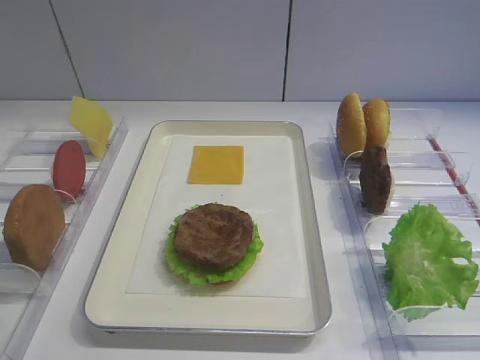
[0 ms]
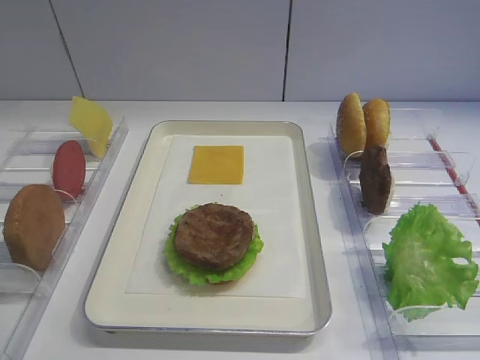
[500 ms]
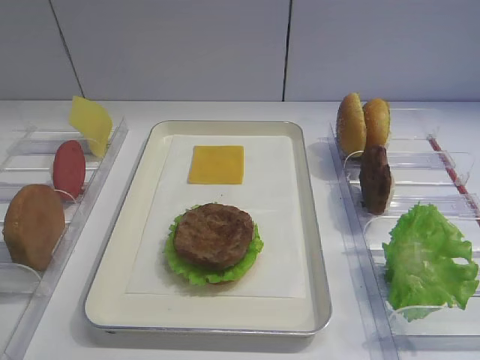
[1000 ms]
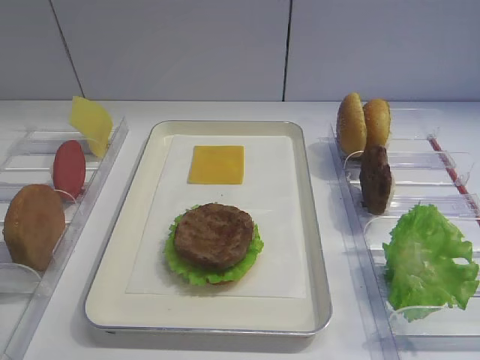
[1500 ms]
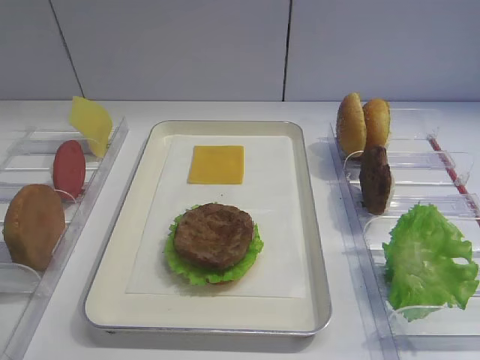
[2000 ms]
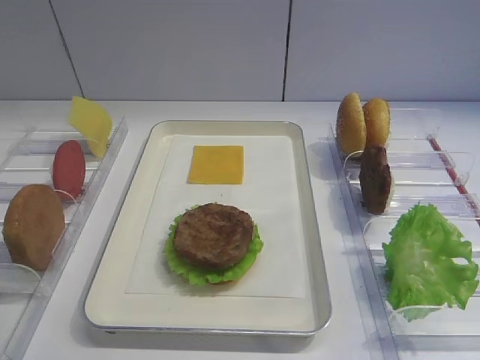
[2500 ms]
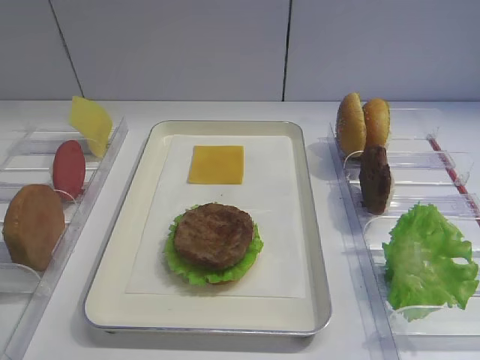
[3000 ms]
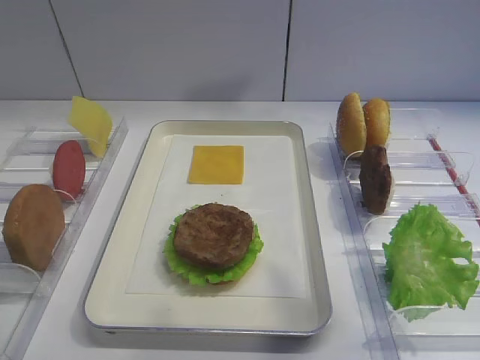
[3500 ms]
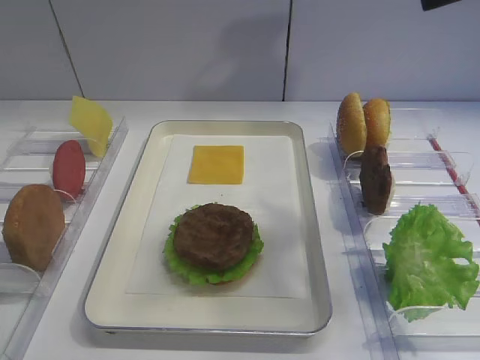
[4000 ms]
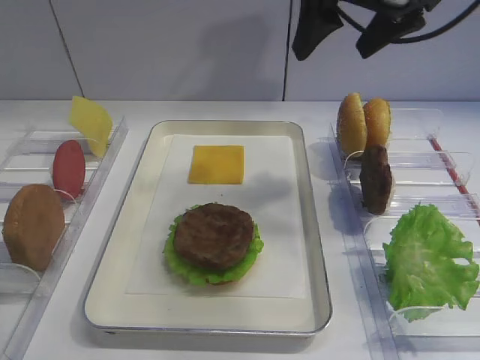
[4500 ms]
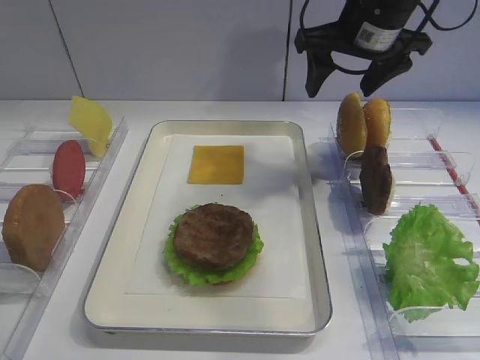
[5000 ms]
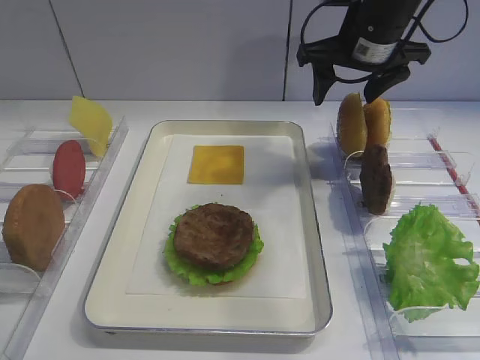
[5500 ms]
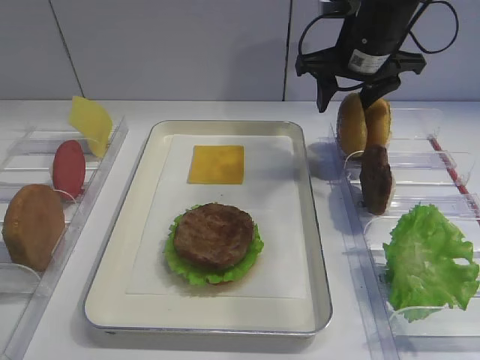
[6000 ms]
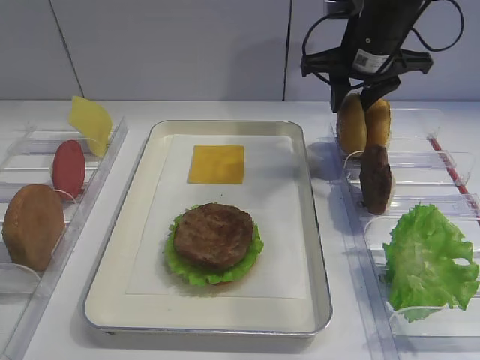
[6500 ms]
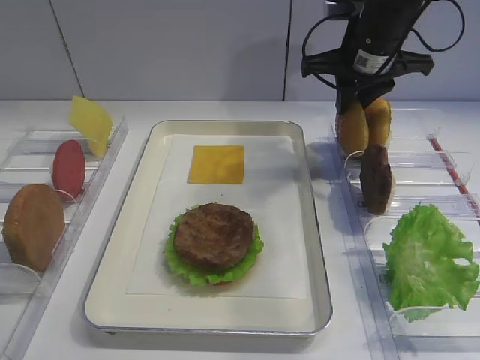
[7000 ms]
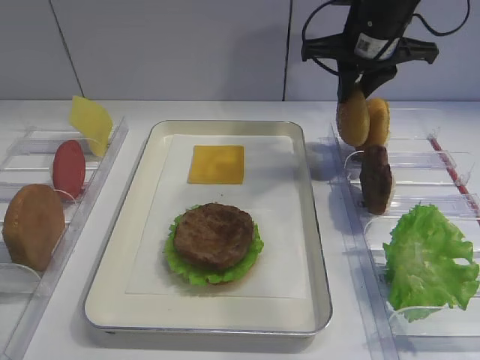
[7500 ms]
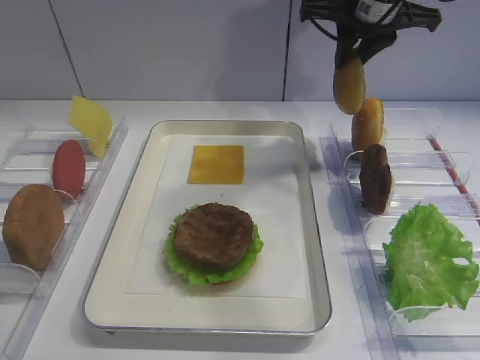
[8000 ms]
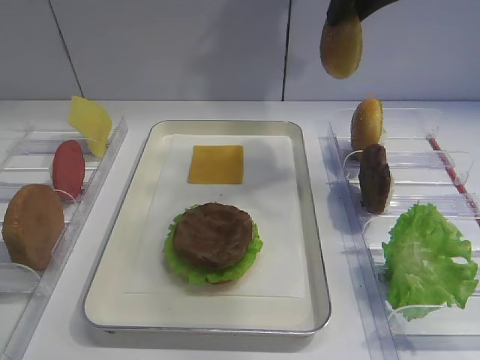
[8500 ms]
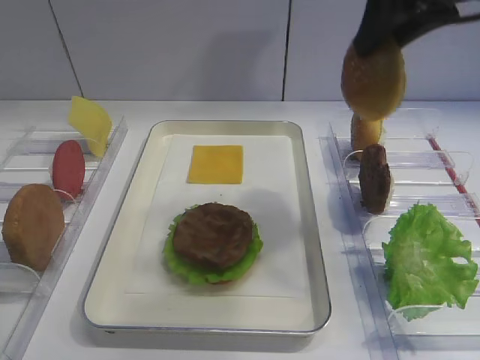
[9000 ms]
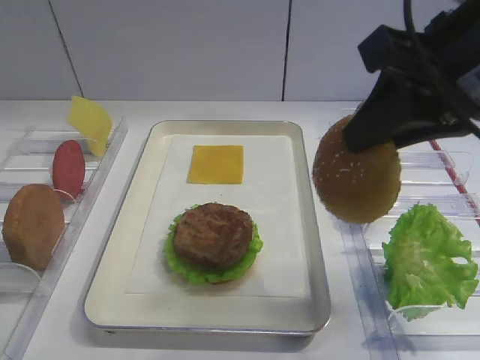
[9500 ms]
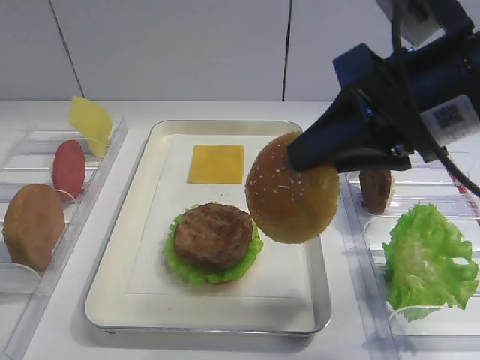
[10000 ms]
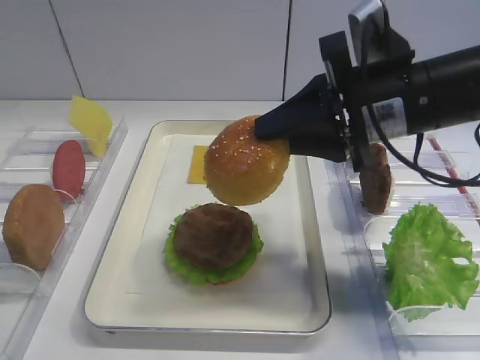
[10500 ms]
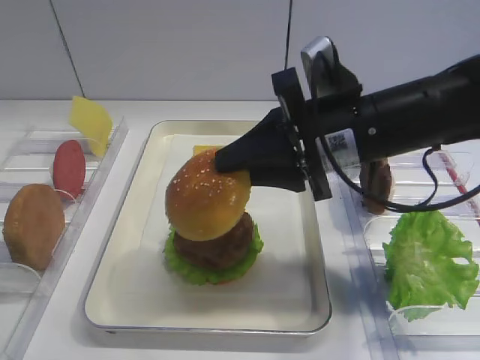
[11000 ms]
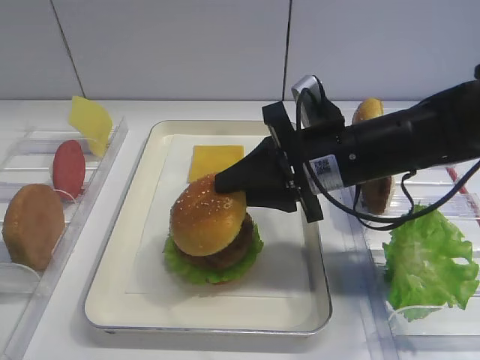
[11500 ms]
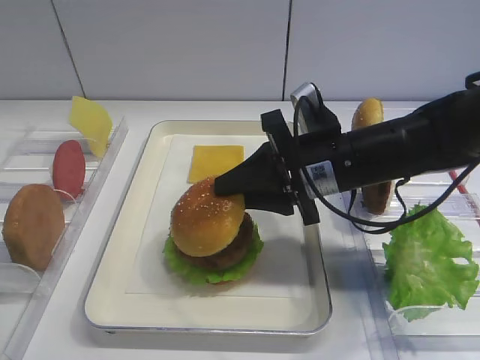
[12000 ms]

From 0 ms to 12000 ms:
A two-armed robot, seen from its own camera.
Step, from 0 ms to 7500 ms: Pick up the hamburger lid with the right gripper.
From 2000 ms to 4000 ms: The right gripper moves forward and upward, approximately 30 cm.
From 4000 ms to 6000 ms: The right gripper heads downward, forward and to the left, covering about 20 cm, and closes up.
From 6000 ms to 8000 ms: The right gripper shifts about 5 cm upward, and closes up.
From 8000 ms to 10000 ms: The right gripper moves backward, approximately 20 cm.
From 10000 ms to 12000 ms: The right gripper shifts about 15 cm downward and forward.

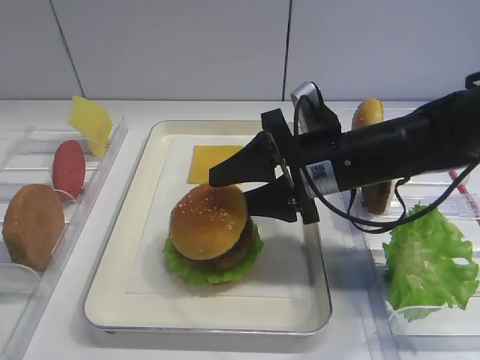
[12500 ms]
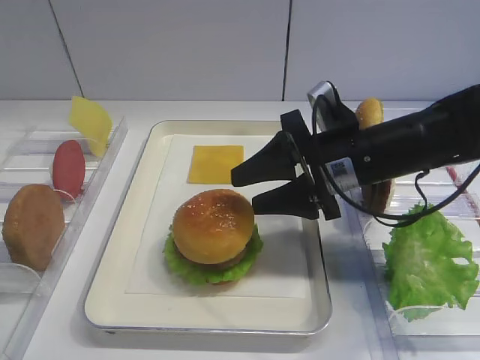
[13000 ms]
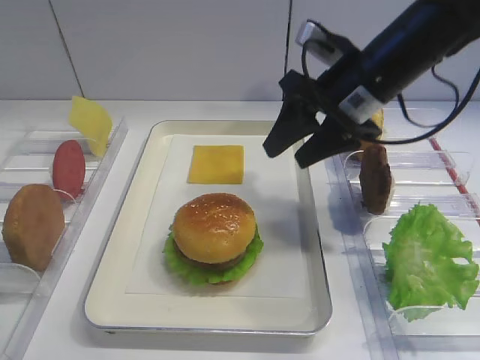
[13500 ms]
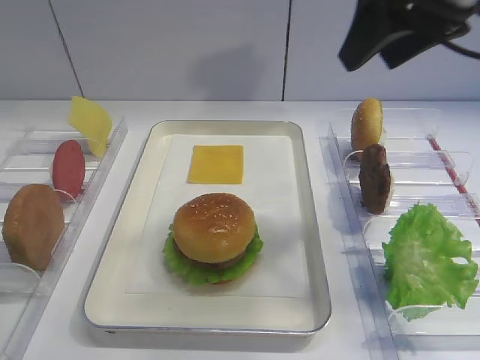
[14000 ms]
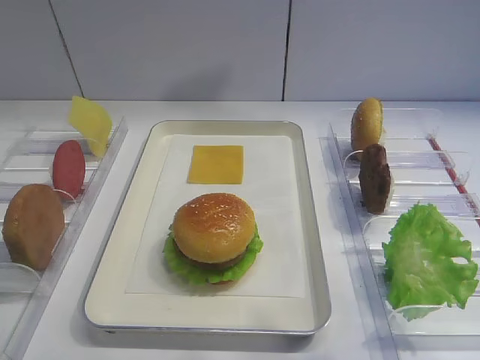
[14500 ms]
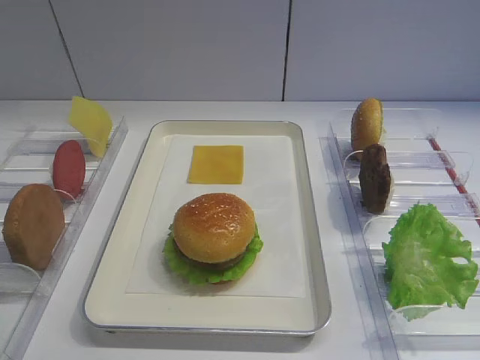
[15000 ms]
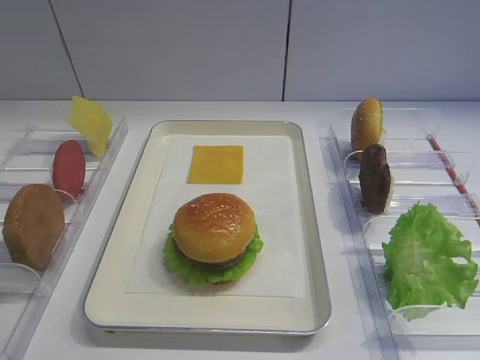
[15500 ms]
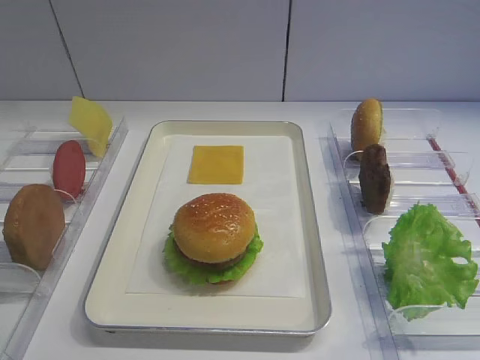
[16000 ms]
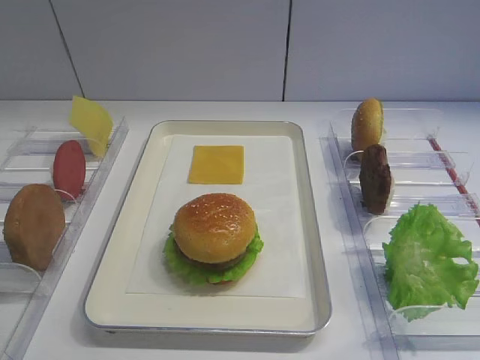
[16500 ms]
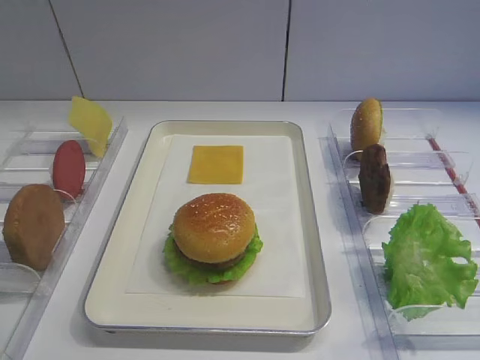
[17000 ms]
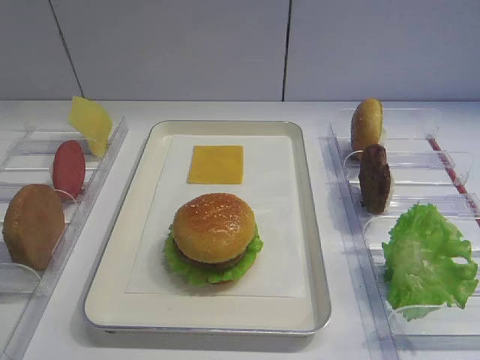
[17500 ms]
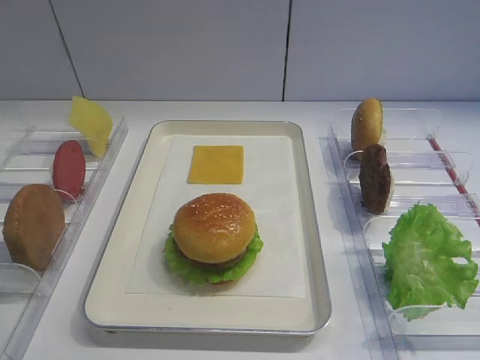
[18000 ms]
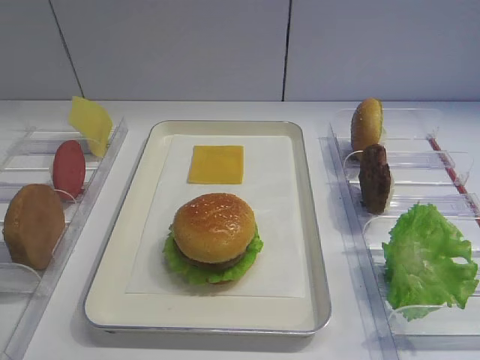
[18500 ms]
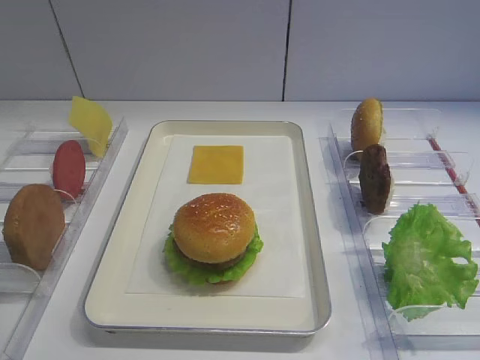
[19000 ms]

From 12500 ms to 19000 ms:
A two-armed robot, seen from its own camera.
From 12500 ms to 14500 ms: The right gripper is displaced upward, backward and to the right by roughly 30 cm.
From 14500 ms to 17000 ms: The right gripper heads downward and backward, covering roughly 25 cm.

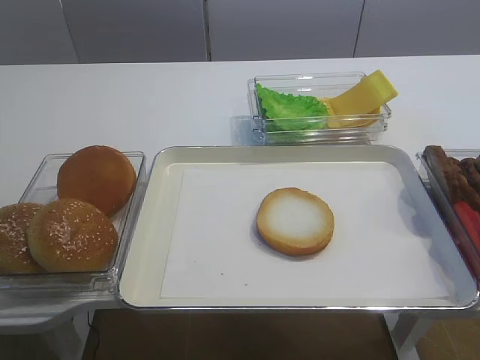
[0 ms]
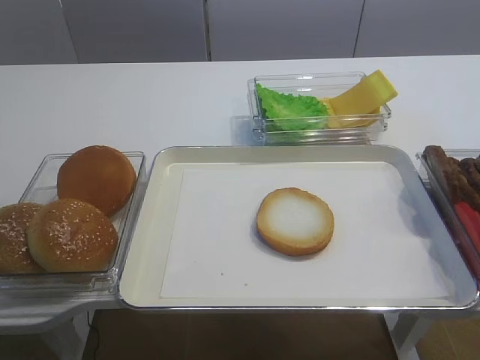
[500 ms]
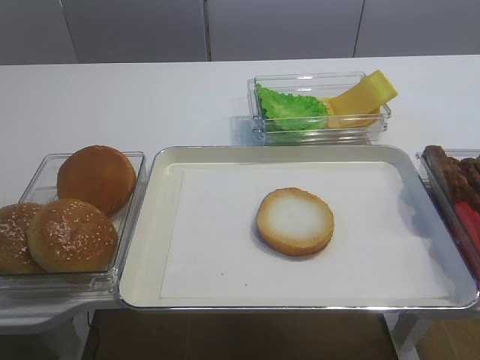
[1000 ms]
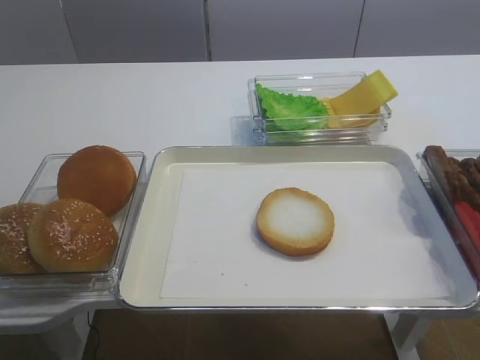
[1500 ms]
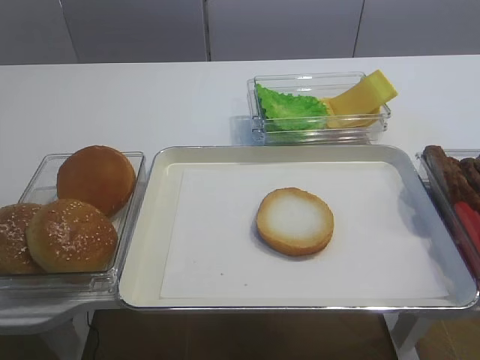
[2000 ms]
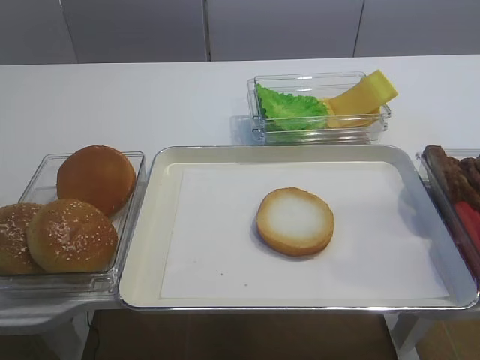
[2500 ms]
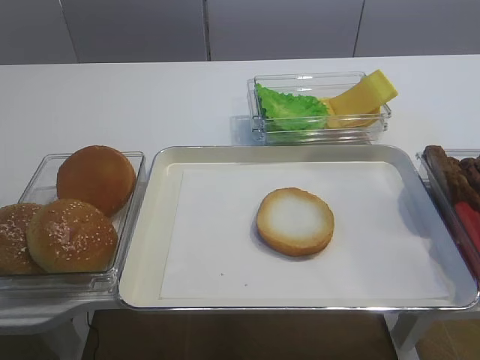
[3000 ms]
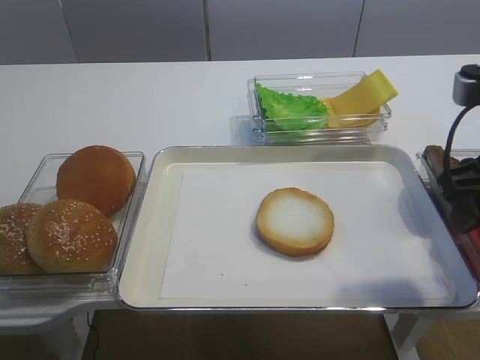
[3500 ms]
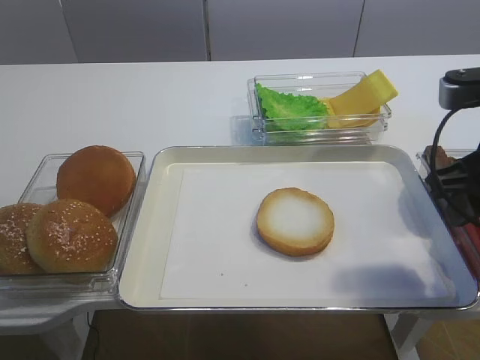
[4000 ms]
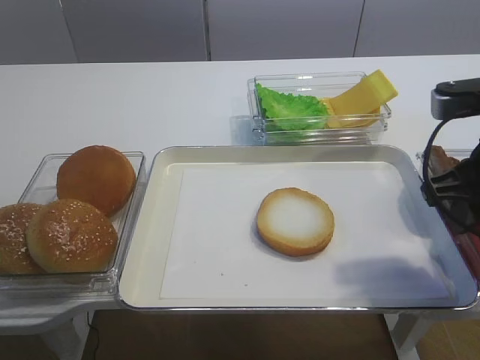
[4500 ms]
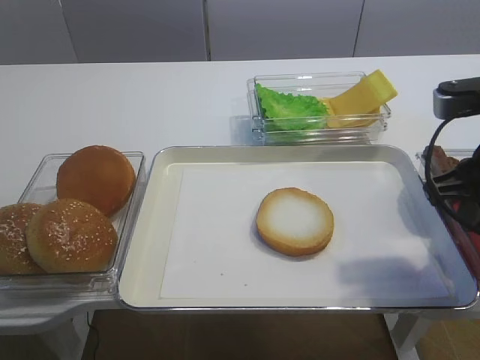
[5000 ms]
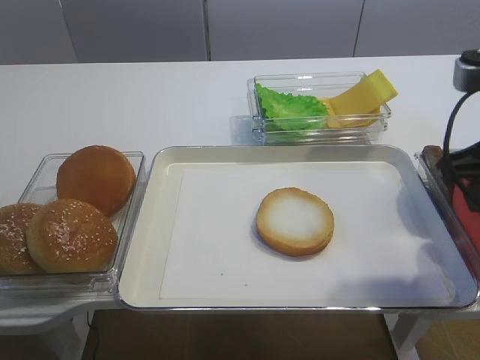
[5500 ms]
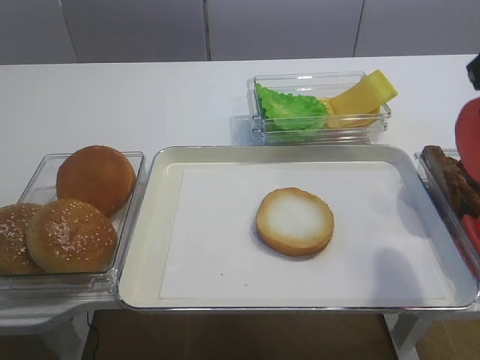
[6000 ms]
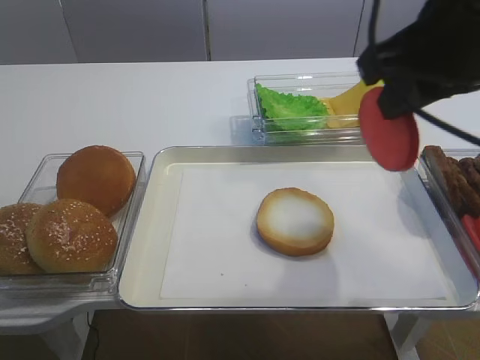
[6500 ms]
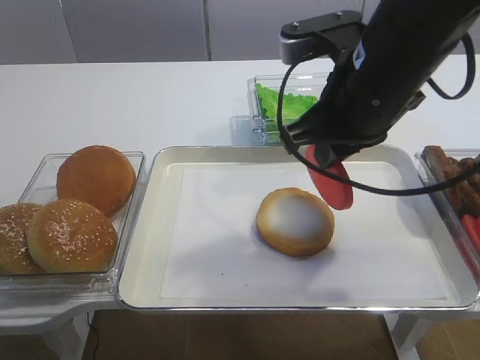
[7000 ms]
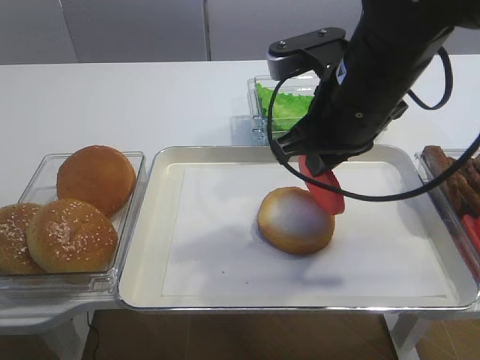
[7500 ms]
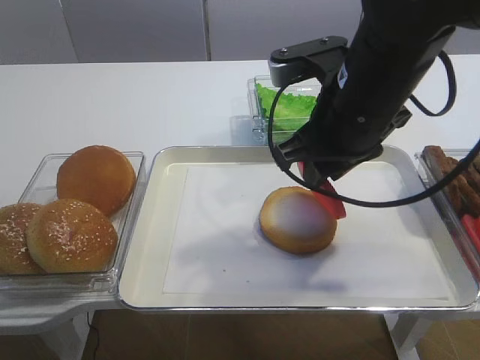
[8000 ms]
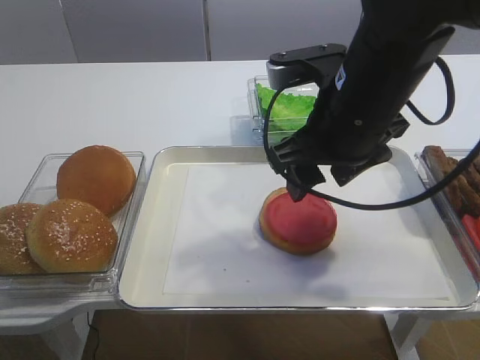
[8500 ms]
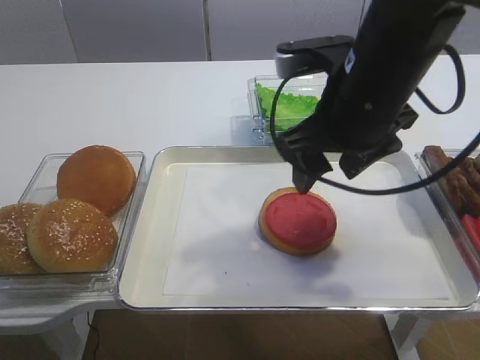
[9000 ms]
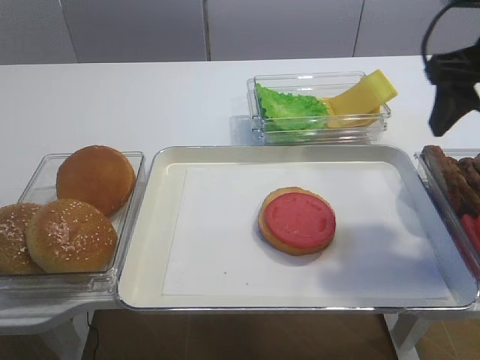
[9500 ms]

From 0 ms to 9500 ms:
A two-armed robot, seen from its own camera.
Step, from 0 ms to 5500 ms: Pick up the tomato slice with the right gripper.
Step, from 6000 ms to 9000 ms: Place the tomato slice on the bread slice with the right gripper.
From 2000 ms to 4000 ms: The right gripper travels forward by approximately 20 cm.
From 4000 ms to 5500 ms: The right gripper closes its fingers.
From 5500 ms to 7500 ms: The right gripper travels to the left and forward by about 15 cm.
From 7500 ms to 9500 ms: The right gripper is displaced to the right and upward by some 15 cm, and opens.
